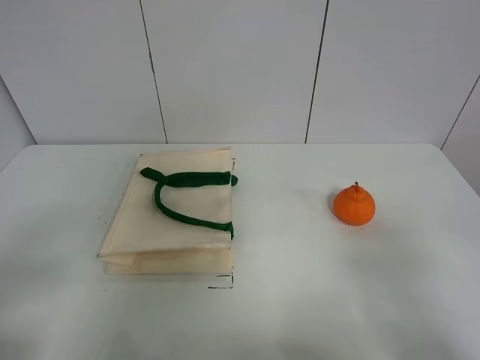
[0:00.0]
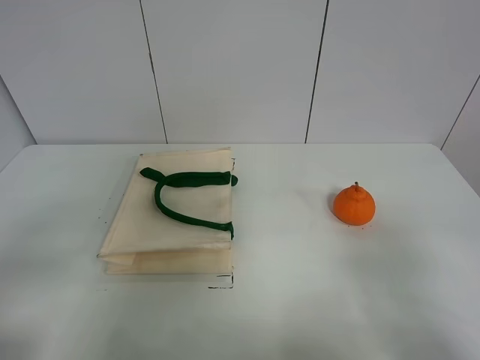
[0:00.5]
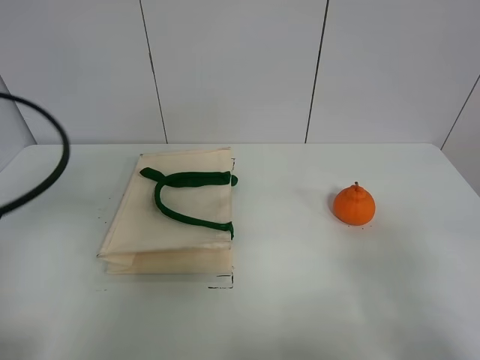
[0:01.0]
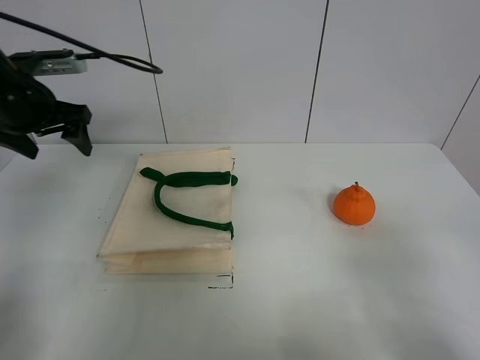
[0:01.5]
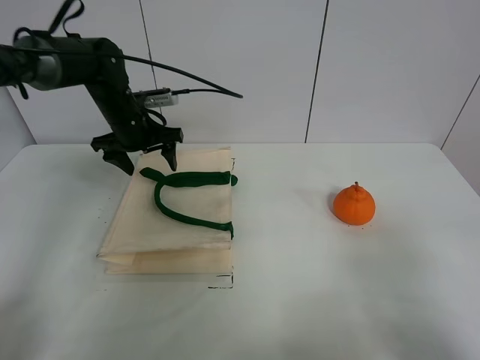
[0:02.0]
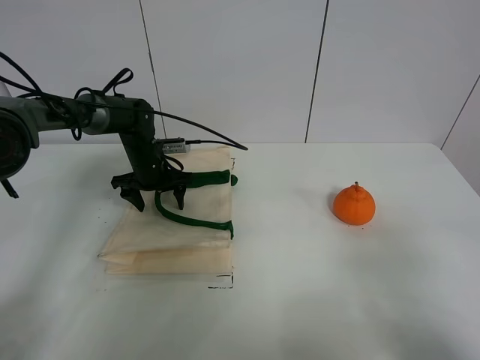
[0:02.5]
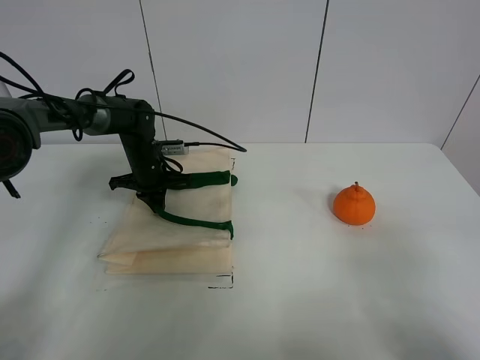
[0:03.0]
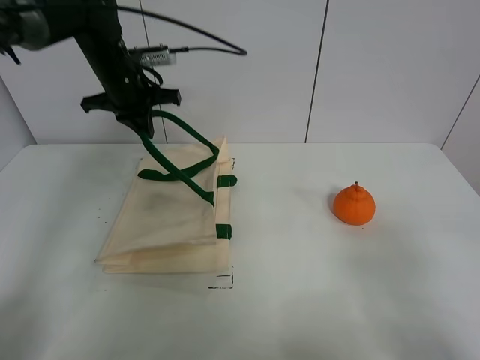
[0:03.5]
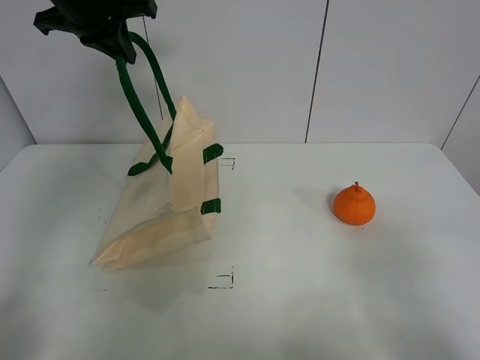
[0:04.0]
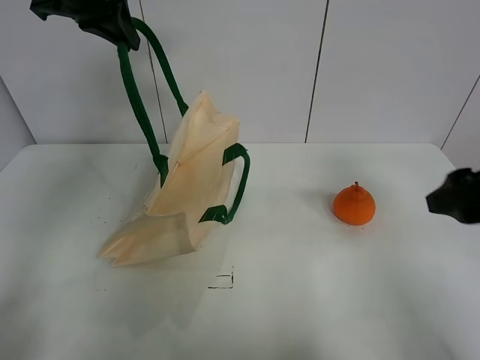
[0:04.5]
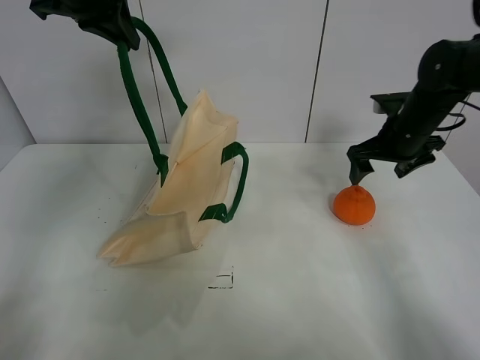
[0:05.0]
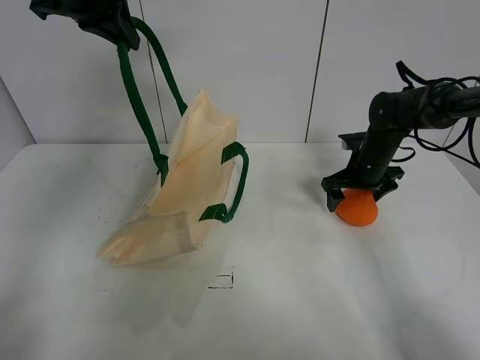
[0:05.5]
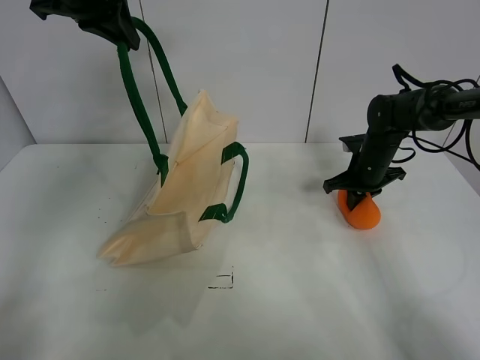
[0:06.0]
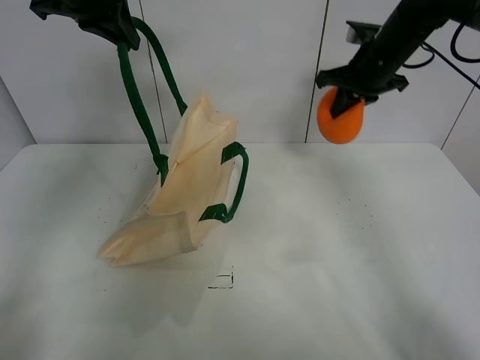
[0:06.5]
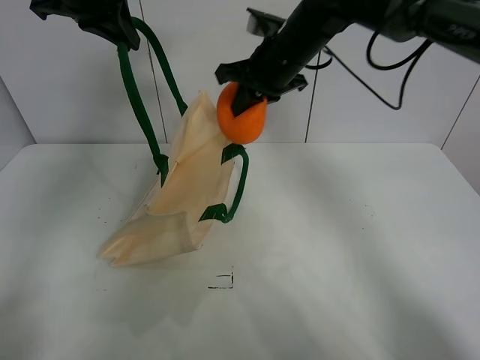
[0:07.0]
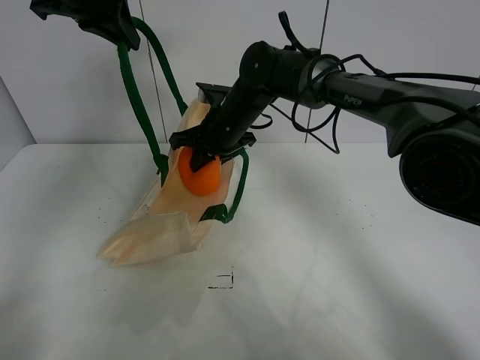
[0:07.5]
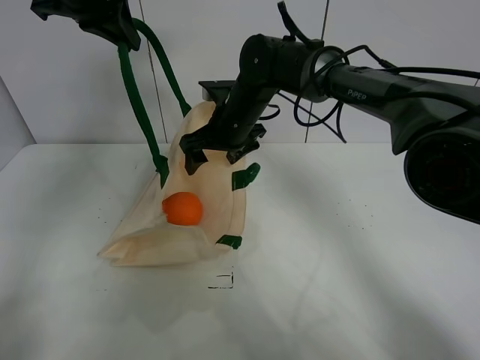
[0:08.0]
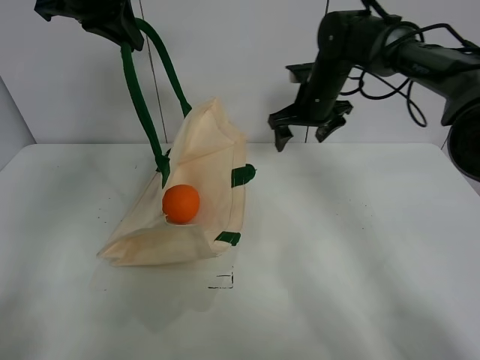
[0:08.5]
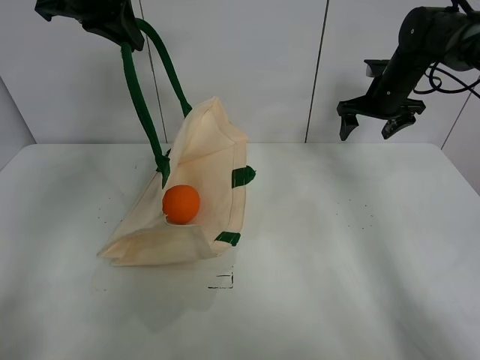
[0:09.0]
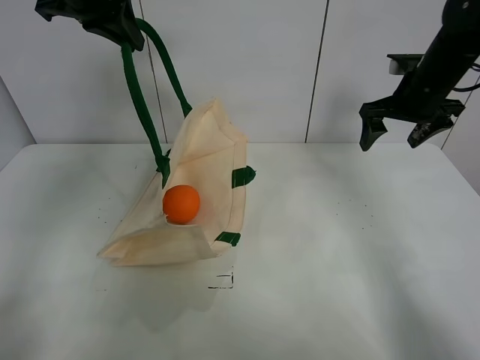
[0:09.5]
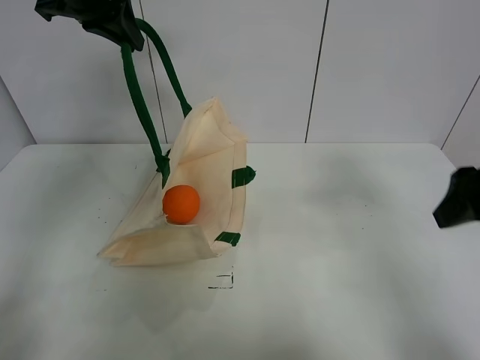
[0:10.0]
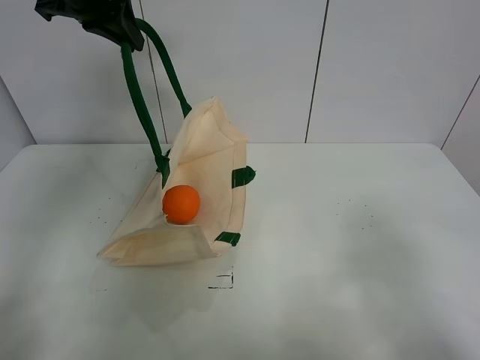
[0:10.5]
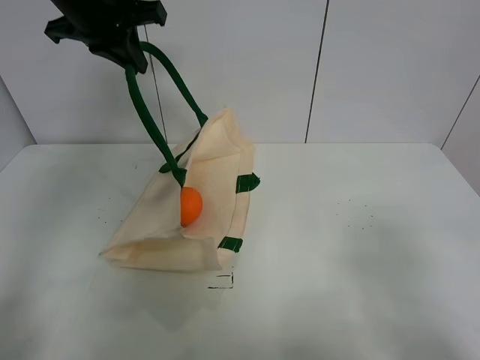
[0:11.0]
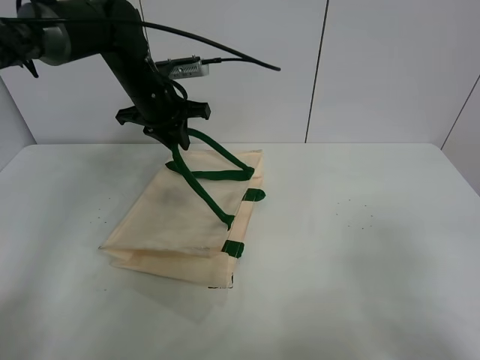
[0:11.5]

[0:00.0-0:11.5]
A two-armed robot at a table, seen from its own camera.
Task of the whole recording: open the white linen bag and put the orange in the bag.
Step, 0:00.0 to 0:04.0: Lift the handbag with left gripper.
Step, 0:04.5 to 0:06.0: Grasp the orange with right gripper.
Step, 0:06.5 to 0:08.0: Place the orange in the handbag with right gripper.
0:00.0 to 0:02.0: The left gripper moves forward, approximately 40 cm.
0:02.0 to 0:04.0: The left gripper moves upward, some 20 cm, and closes up.
0:04.0 to 0:06.0: The right gripper shifts about 40 cm forward, and closes its fingers.
0:06.0 to 0:07.5: The right gripper travels to the left by roughly 25 cm.
0:07.5 to 0:09.5: The right gripper travels to the right by approximately 30 cm, and opens up.
0:09.5 to 0:11.5: The left gripper goes some 15 cm downward, and opens. The right gripper shifts approximately 40 cm backward.

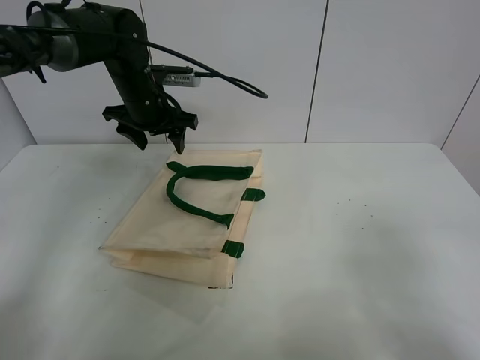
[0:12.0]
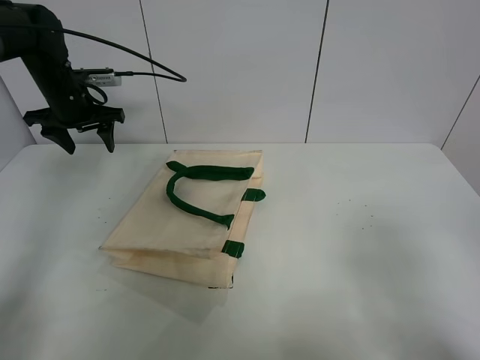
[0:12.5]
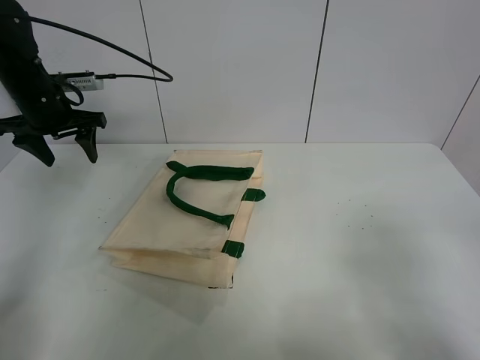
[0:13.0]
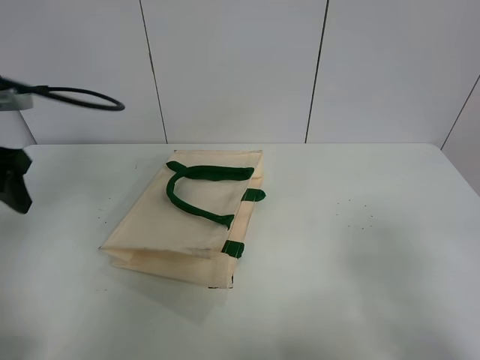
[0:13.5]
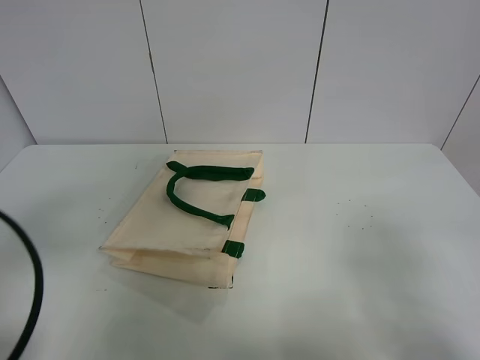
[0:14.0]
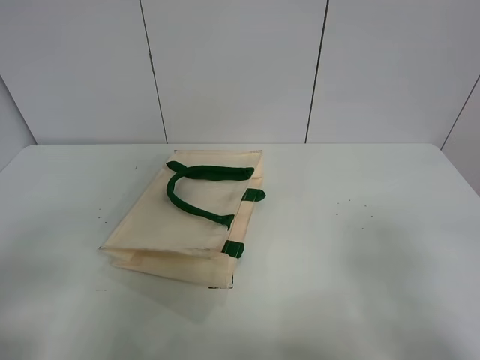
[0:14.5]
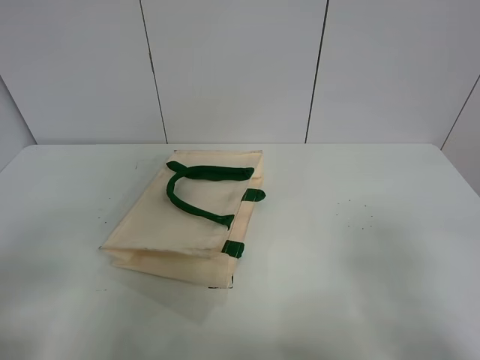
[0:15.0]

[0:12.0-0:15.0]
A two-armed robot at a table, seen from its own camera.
Task of the whole recording: open the white linen bag and put the orange in the bag.
0:12.0 to 0:13.5: The left gripper goes about 25 cm backward and to the left.
0:13.5 to 0:15.0: The left gripper heads backward, covering approximately 20 cm.
